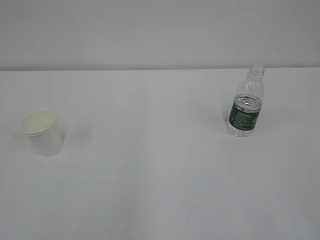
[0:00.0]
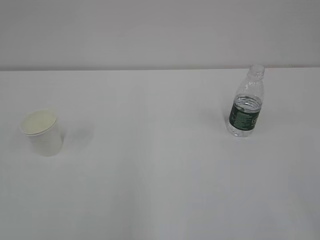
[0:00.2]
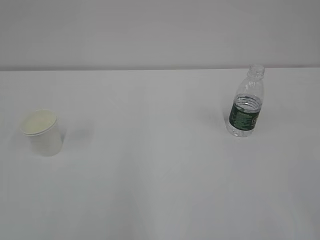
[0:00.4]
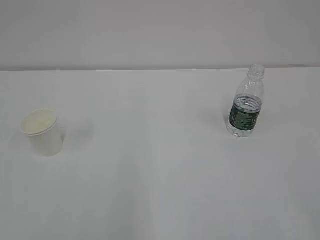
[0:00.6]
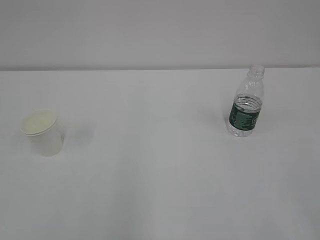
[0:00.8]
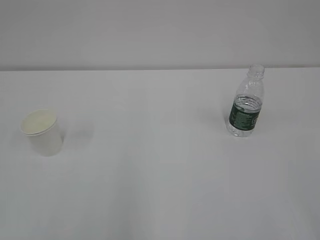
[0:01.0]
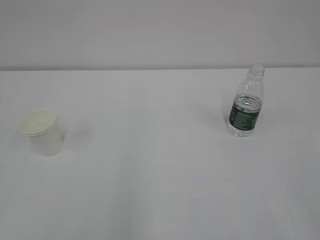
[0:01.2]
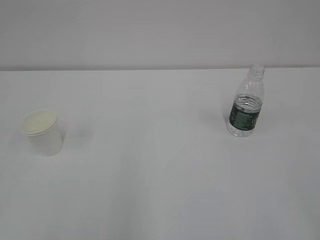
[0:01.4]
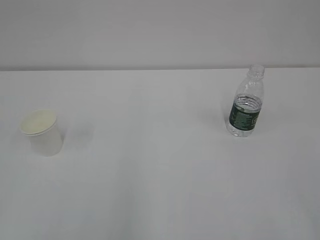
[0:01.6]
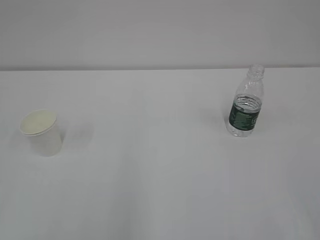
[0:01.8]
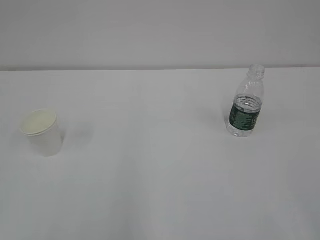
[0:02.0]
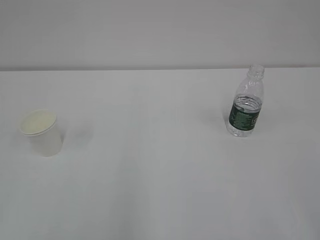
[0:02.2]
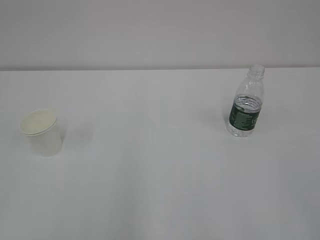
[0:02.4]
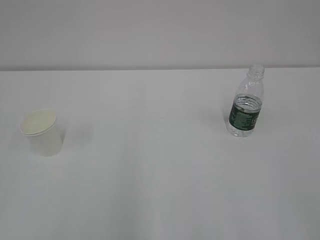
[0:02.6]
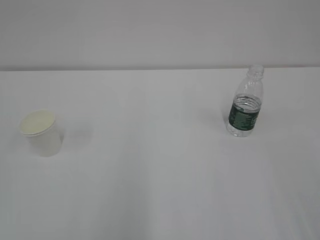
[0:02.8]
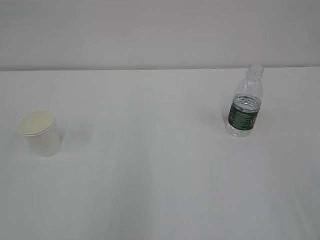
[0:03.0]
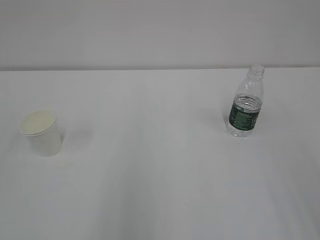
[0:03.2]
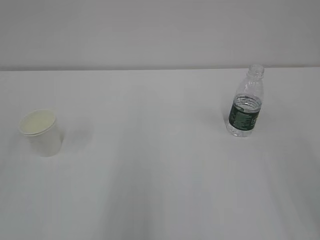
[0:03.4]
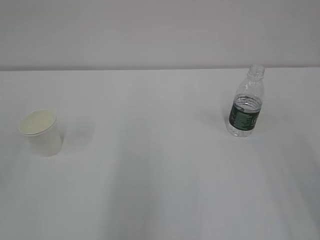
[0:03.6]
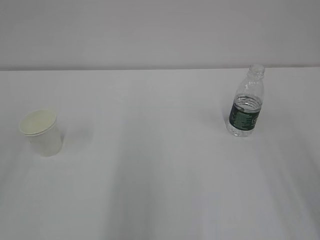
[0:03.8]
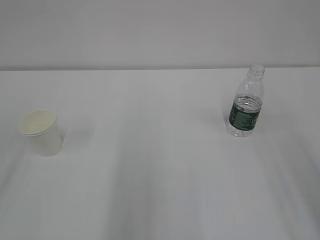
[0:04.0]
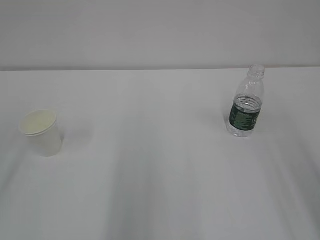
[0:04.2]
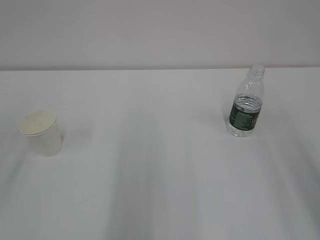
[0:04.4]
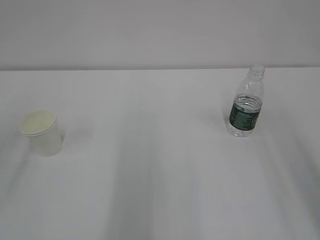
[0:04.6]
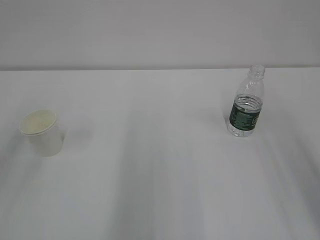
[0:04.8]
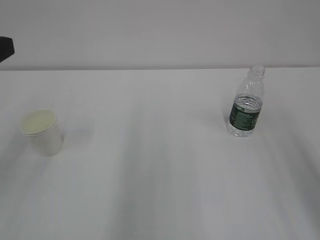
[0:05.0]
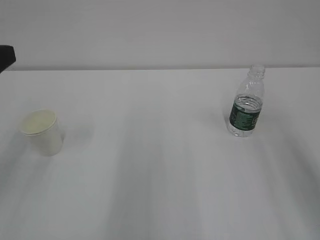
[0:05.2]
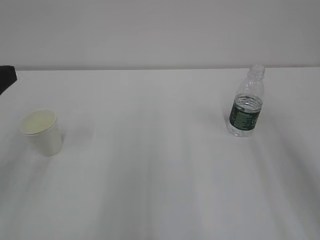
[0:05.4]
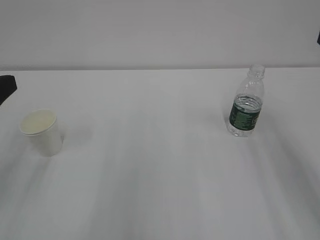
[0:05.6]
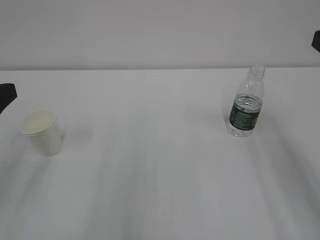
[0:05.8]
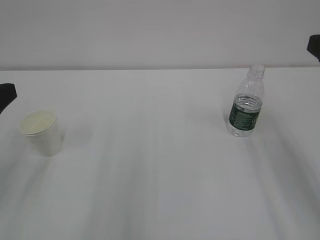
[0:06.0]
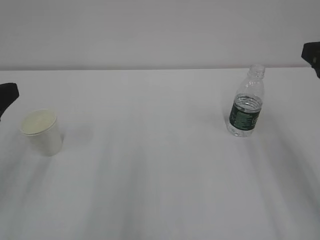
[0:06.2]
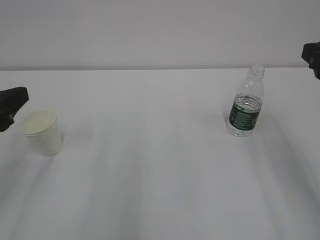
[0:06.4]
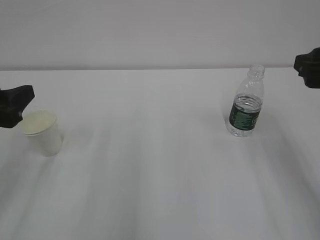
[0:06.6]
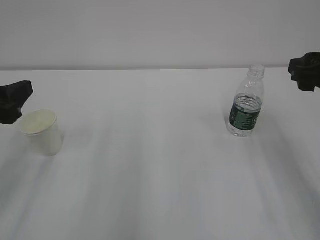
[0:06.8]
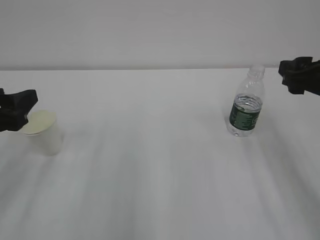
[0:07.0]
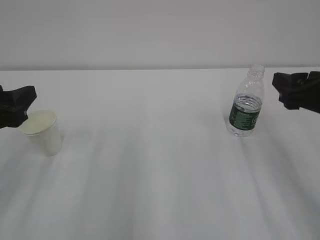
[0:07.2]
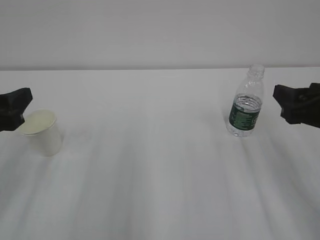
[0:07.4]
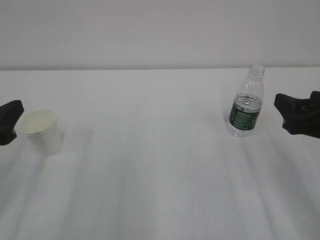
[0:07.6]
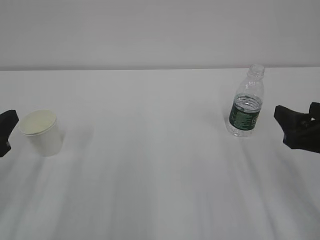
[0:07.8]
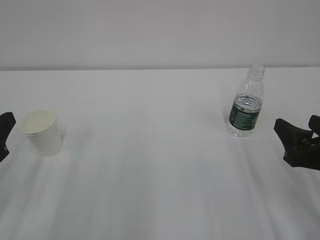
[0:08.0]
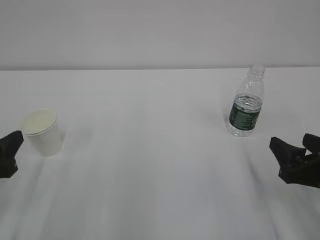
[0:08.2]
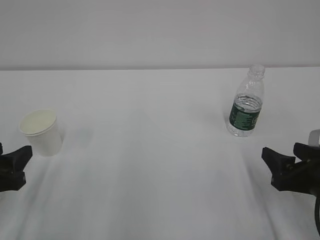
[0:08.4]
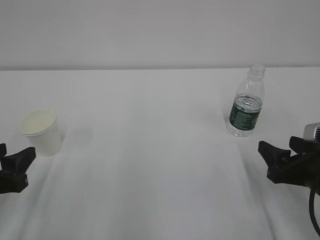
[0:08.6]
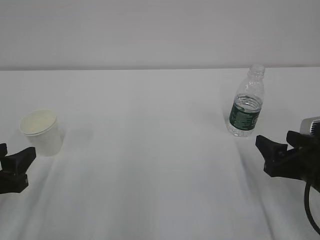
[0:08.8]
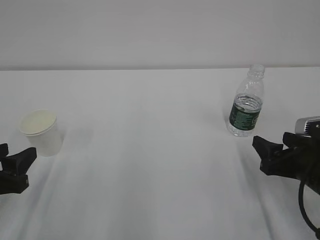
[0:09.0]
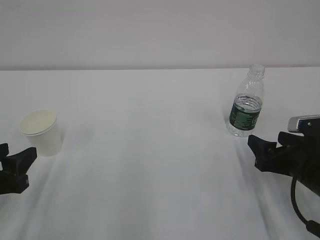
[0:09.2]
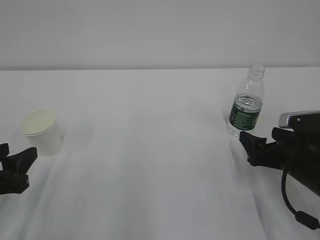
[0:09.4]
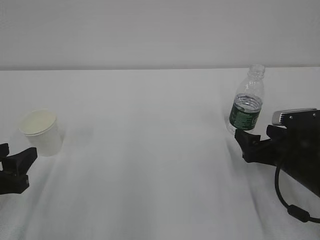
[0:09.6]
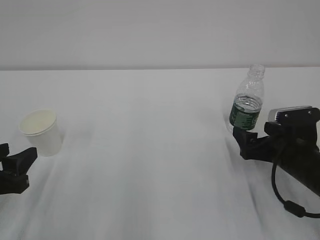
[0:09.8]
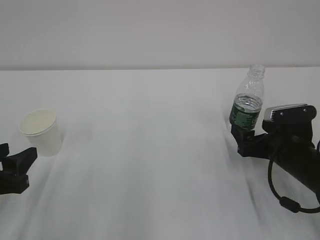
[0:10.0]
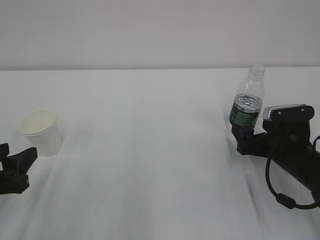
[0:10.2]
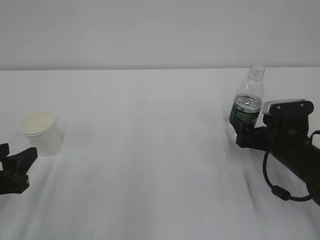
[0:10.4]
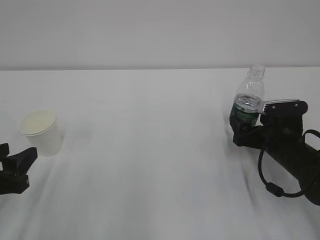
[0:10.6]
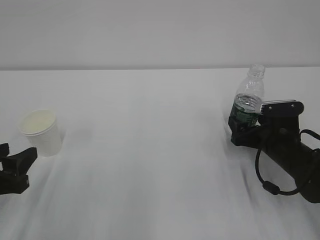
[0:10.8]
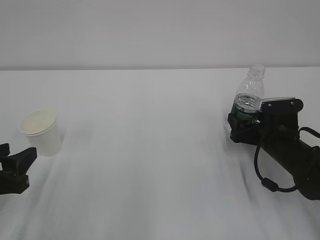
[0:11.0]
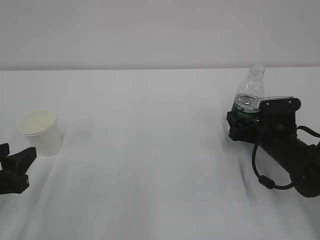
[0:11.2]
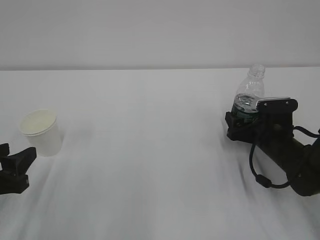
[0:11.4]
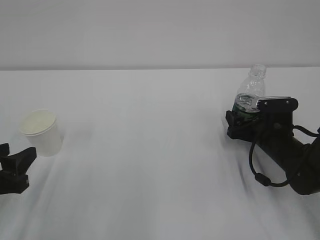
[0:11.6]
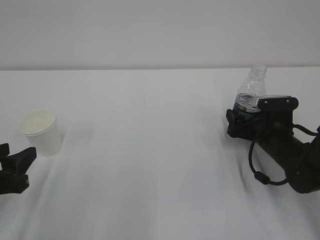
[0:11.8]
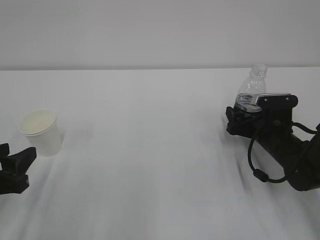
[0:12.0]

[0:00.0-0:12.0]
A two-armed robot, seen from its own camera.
0:06.0 to 0:07.6: The left gripper heads downward, covering some 5 cm; the right gripper heads downward, covering about 10 cm.
0:07.6 to 0:09.0: The two grippers go some 10 cm downward.
0:09.0 to 0:10.4: The right gripper moves forward, about 10 cm.
0:10.4 to 0:12.0: The right gripper shifts by some 5 cm.

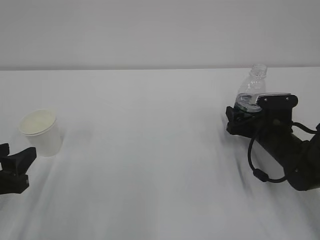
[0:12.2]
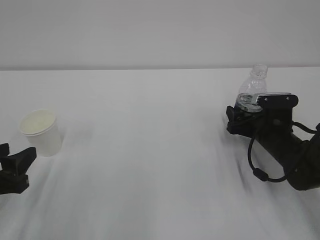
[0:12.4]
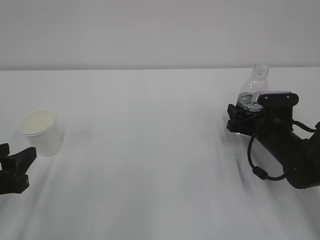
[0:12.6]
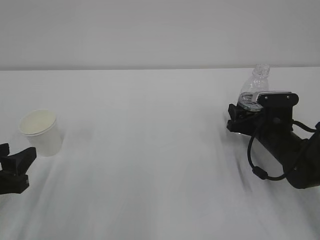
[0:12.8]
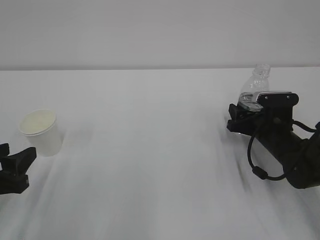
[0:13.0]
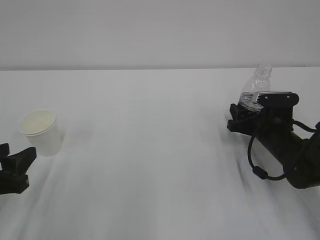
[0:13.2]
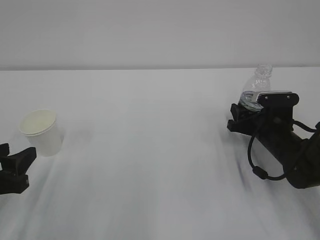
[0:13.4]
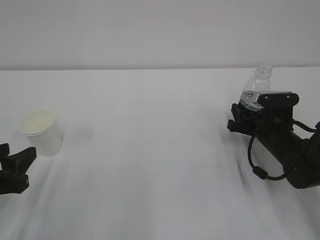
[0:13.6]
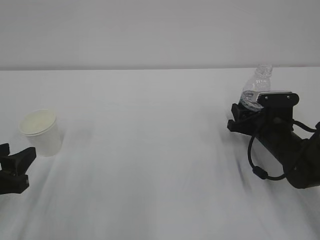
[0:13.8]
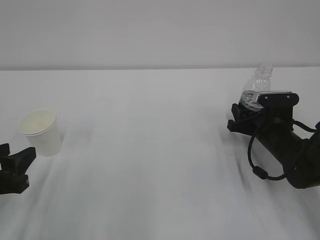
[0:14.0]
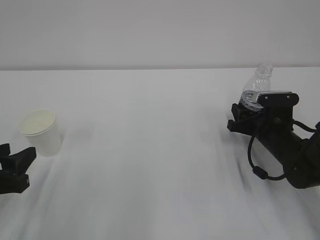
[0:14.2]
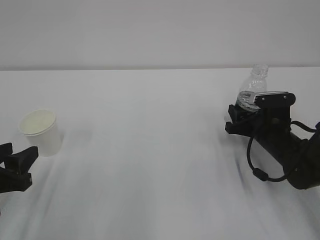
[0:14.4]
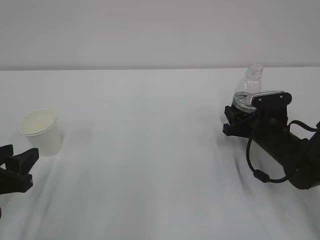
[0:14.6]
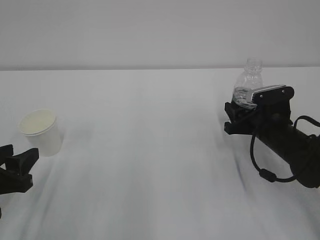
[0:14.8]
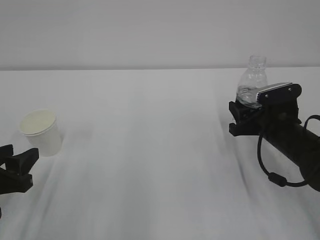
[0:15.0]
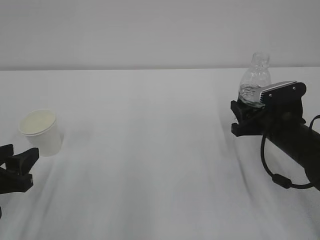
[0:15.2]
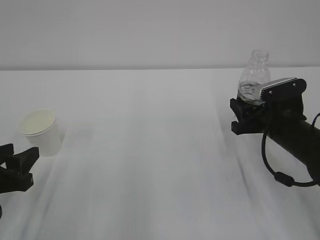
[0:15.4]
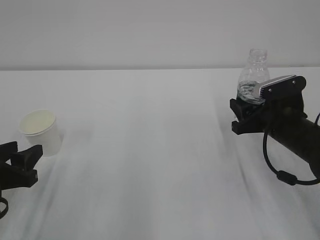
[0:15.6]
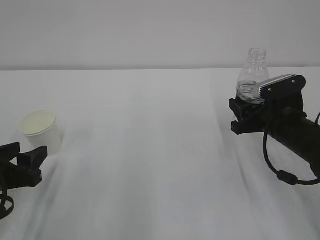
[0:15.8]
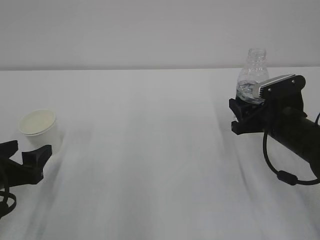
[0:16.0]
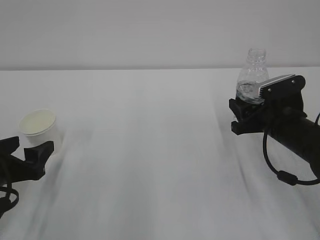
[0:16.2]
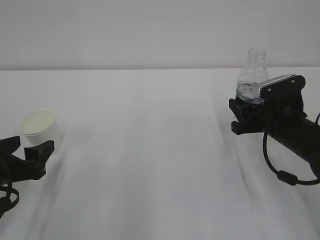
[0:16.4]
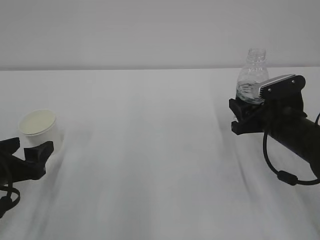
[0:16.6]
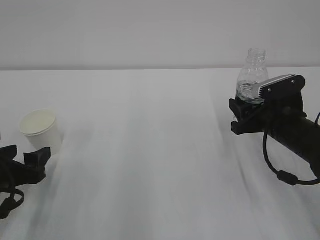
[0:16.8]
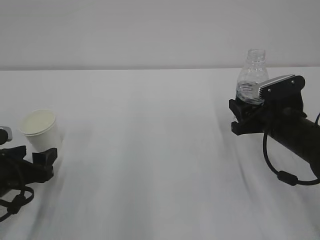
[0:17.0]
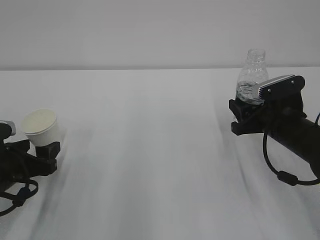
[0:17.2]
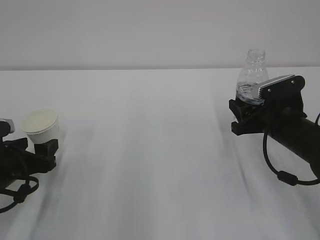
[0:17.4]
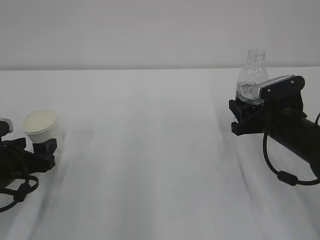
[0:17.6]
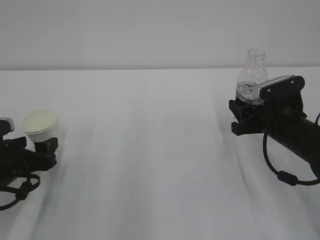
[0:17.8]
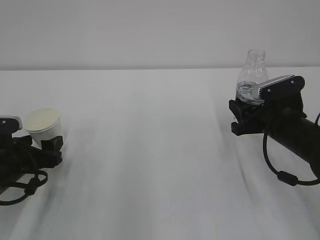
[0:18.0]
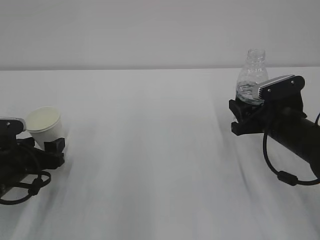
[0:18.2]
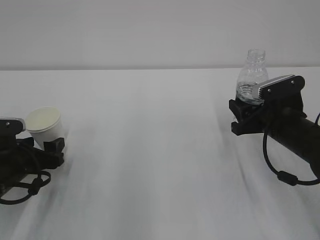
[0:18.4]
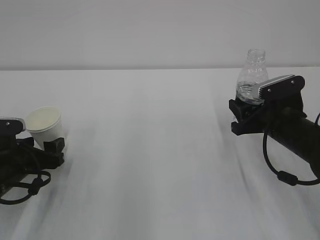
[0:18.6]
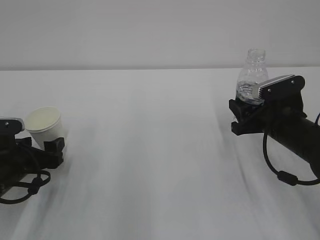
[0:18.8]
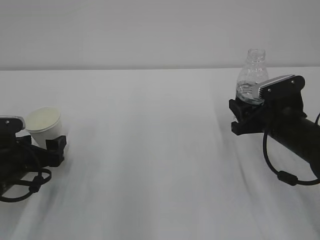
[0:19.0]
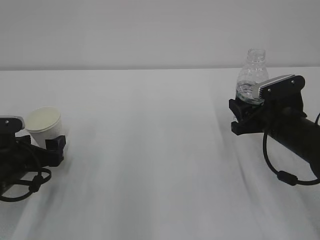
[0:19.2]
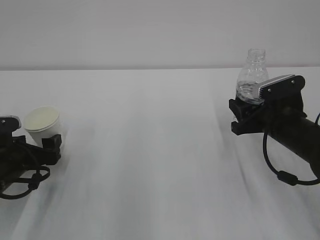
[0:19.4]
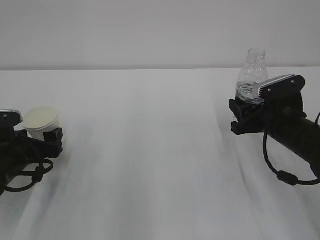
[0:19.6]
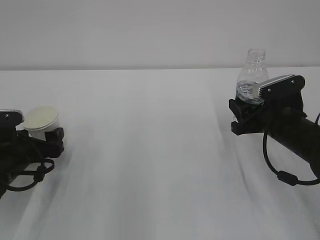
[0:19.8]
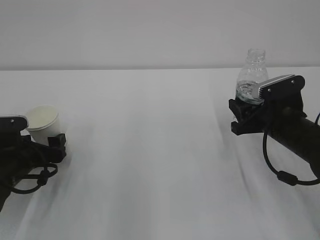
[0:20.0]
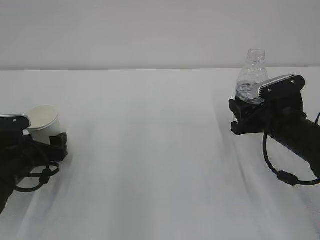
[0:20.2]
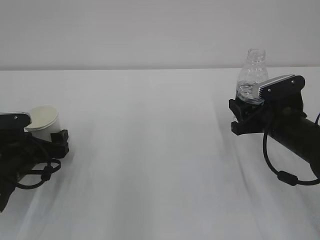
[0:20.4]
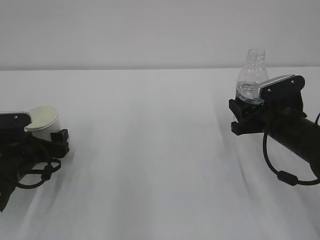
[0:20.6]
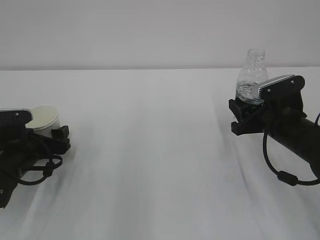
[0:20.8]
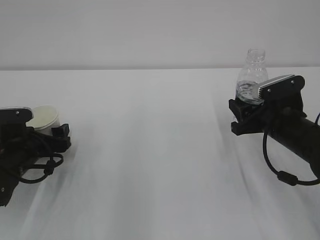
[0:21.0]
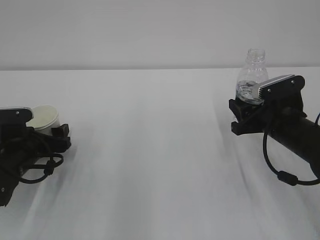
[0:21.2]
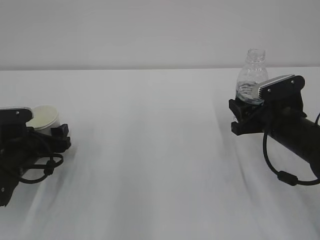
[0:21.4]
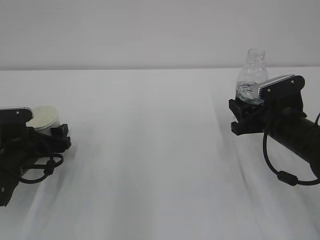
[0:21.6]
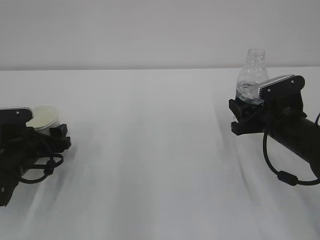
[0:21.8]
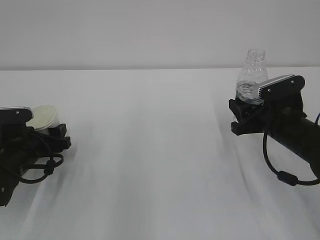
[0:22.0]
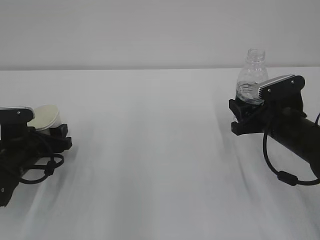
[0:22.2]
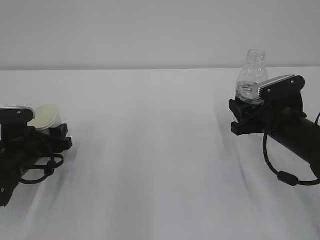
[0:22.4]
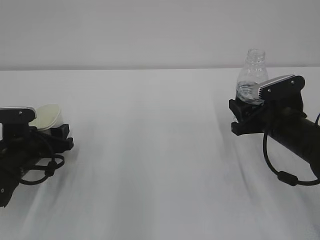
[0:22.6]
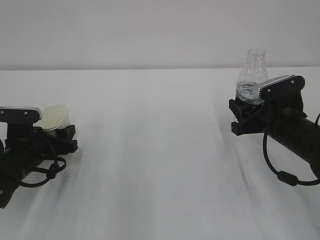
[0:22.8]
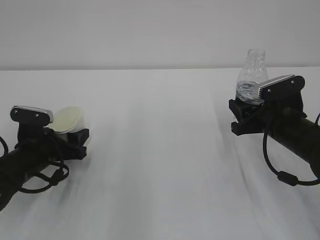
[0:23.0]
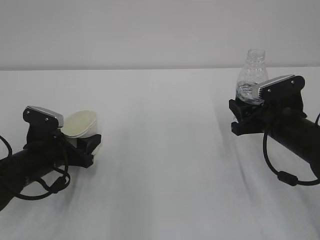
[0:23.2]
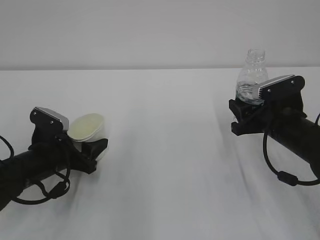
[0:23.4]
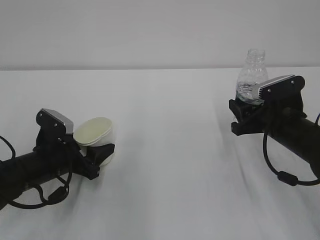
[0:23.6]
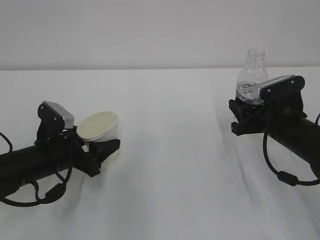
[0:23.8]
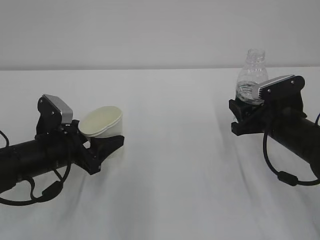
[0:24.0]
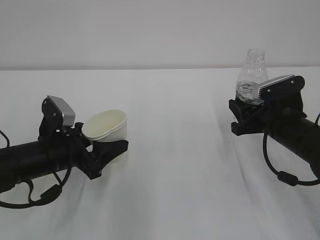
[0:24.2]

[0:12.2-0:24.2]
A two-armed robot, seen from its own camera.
0:12.2 to 0:13.8: The right gripper closes.
0:13.8 to 0:15.2: The right gripper ends up approximately 5 cm from where it was.
0:15.2 to 0:16.6: The left gripper opens its fingers.
0:16.6 to 0:18.2: The left gripper is displaced forward by approximately 5 cm.
0:18.2 to 0:21.2: The grippers make only small movements.
0:21.2 to 0:22.6: The left gripper closes up.
0:22.6 to 0:24.2: The left gripper travels to the right by some 5 cm.
